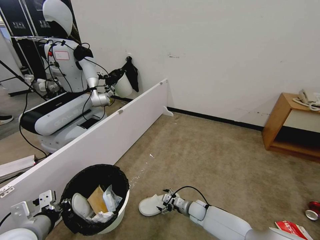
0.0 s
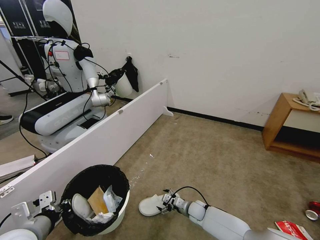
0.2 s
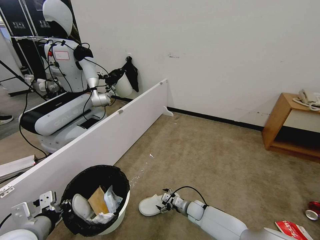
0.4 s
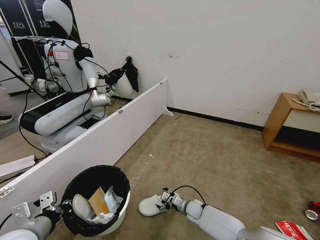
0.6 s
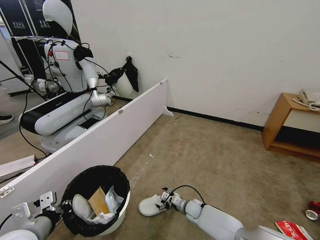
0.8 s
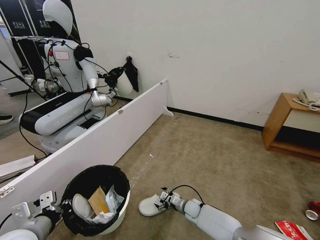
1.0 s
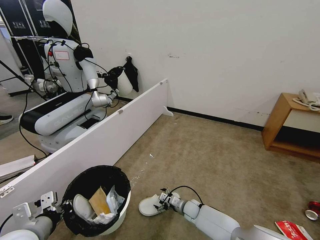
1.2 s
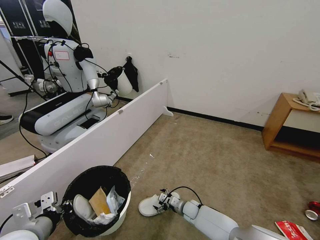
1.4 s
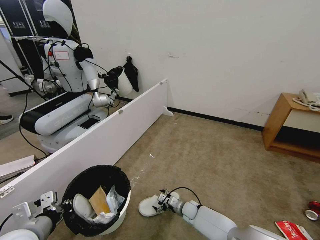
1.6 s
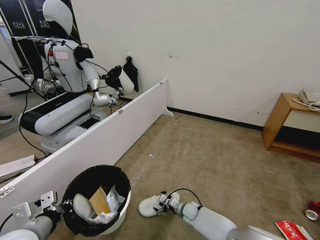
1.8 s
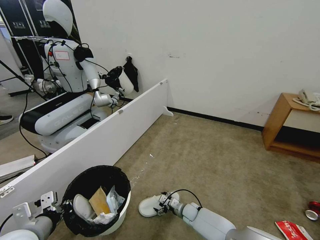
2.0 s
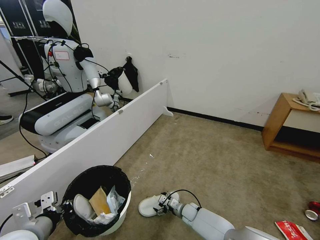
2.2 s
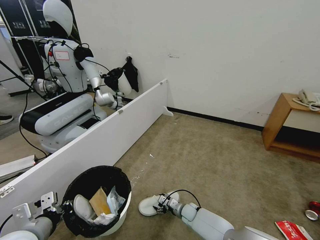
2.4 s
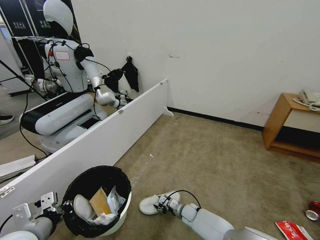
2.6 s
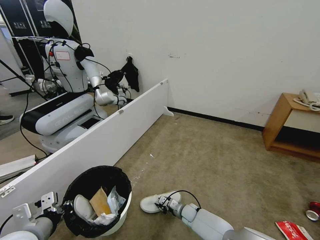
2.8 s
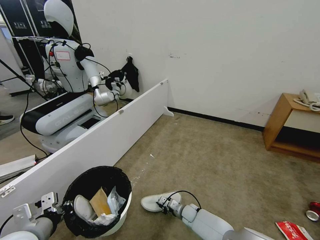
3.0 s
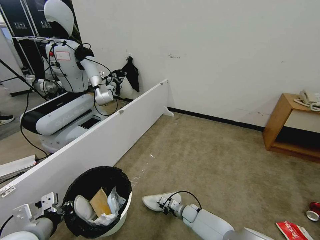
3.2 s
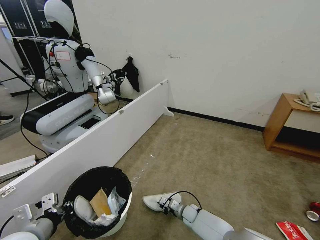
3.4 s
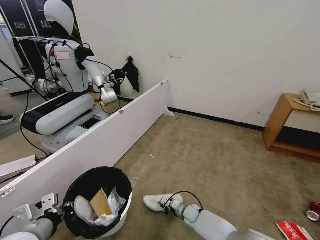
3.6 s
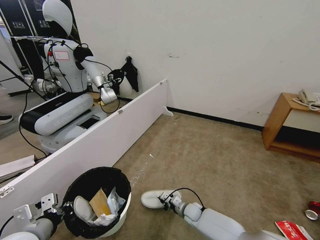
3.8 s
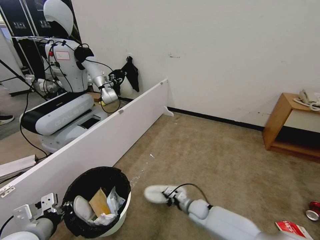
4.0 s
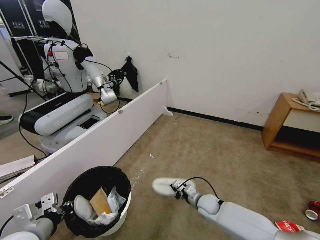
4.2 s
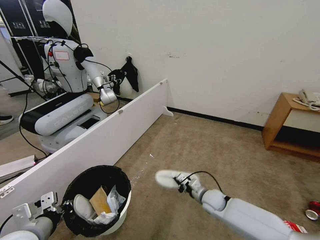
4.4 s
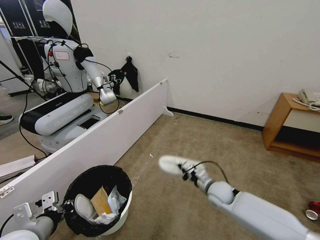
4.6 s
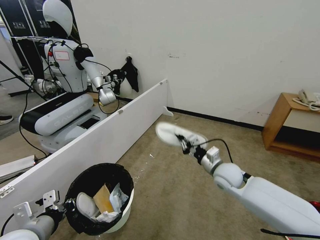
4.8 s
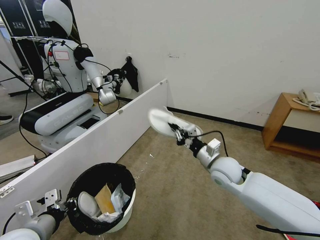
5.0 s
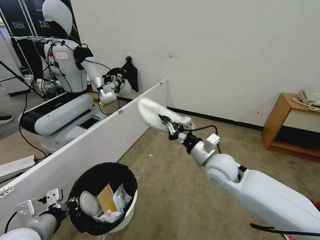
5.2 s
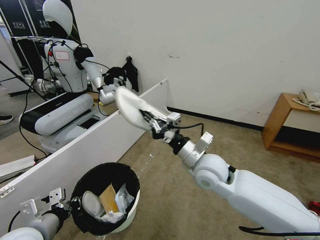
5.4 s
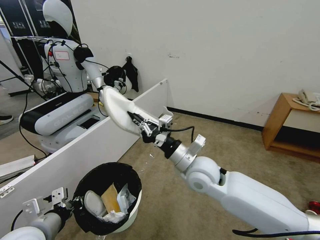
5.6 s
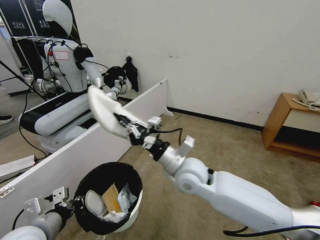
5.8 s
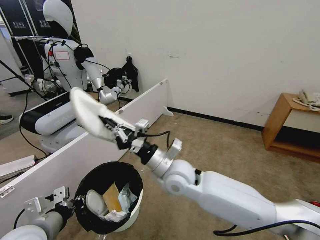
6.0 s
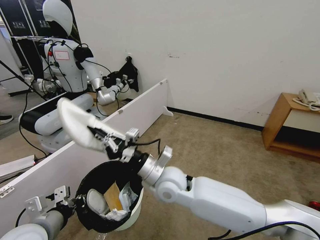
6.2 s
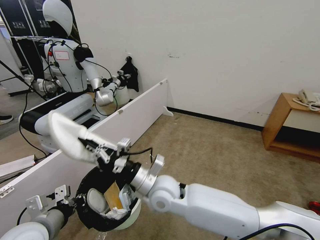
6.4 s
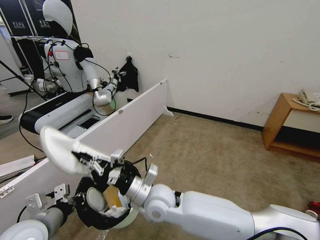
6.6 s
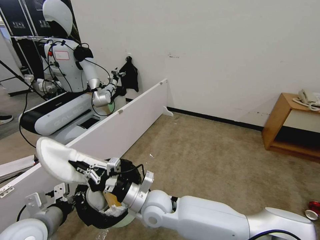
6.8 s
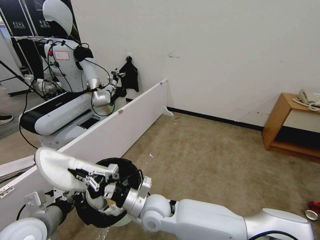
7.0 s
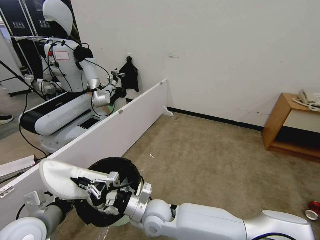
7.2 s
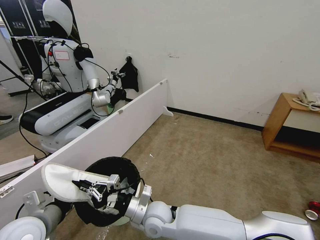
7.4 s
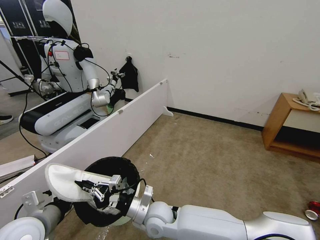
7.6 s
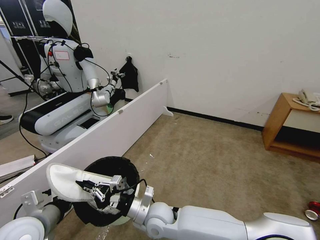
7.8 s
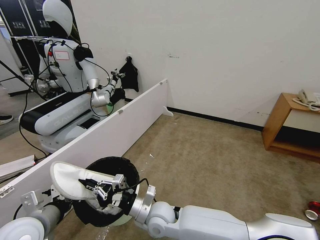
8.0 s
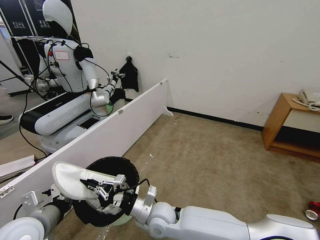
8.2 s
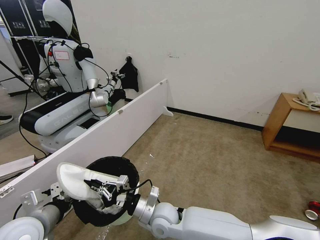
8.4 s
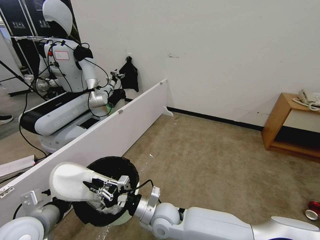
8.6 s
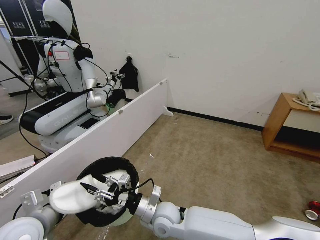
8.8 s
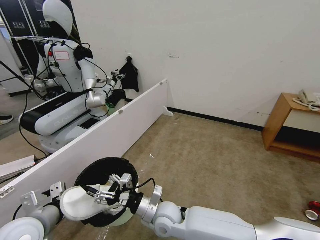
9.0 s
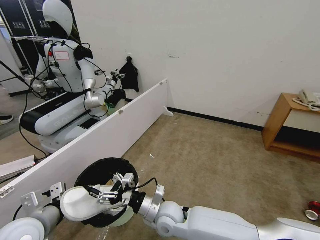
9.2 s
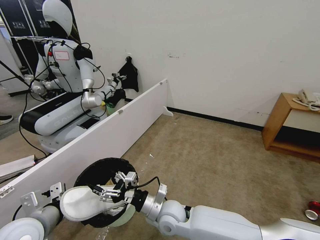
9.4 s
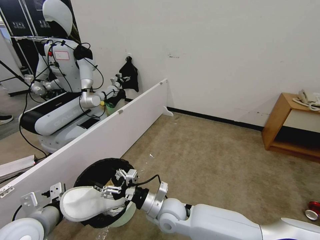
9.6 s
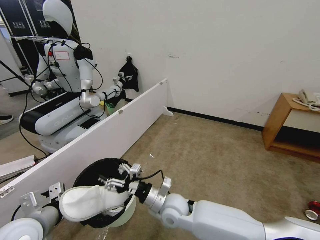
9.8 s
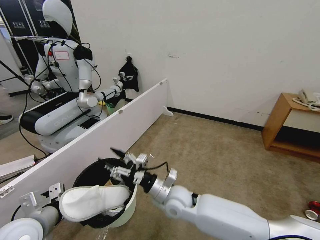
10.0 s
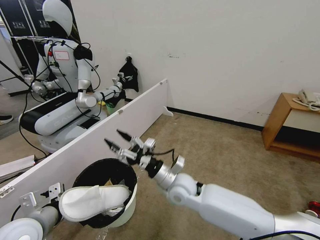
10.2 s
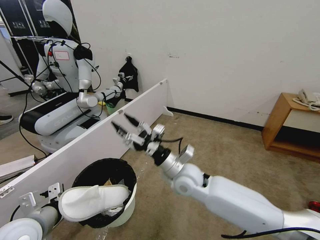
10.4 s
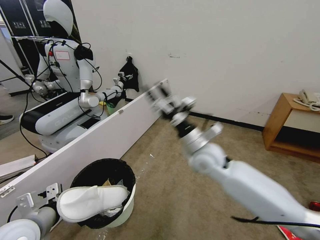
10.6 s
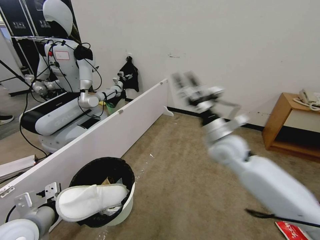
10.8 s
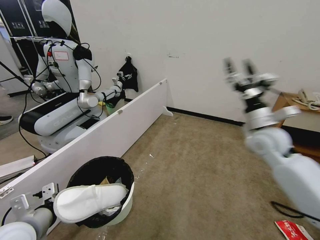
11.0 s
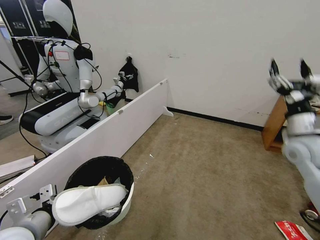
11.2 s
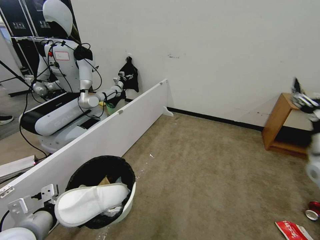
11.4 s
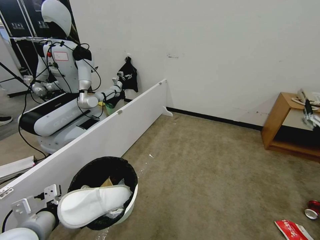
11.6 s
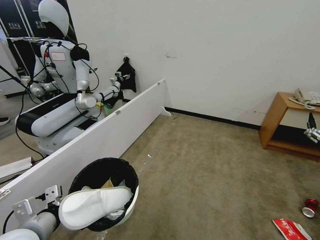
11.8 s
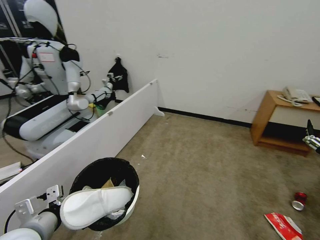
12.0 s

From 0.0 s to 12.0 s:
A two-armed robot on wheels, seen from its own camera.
Task of the whole recording: Pick up the trash bin, then pick up the garbage from the floor and place it into the trash bin.
From 0.0 s to 1.6 s: The grippers move only a little.
From 1.6 s to 3.0 s: The right gripper closes.
From 3.0 s to 4.4 s: The right gripper travels upward and to the right by approximately 20 cm.
From 4.4 s to 6.0 s: The right gripper is displaced upward and to the left by about 30 cm.
From 6.0 s to 7.6 s: The right gripper shifts roughly 15 cm downward, to the left and backward.
From 7.6 s to 9.0 s: The right gripper opens up.
From 9.0 s to 10.4 s: The right gripper travels upward, forward and to the right by about 15 cm.
From 10.4 s to 12.0 s: The right gripper shifts approximately 40 cm to the right.

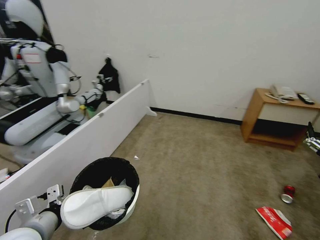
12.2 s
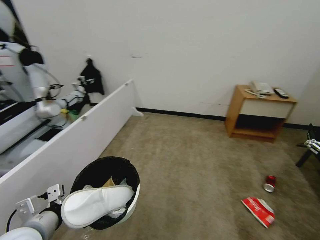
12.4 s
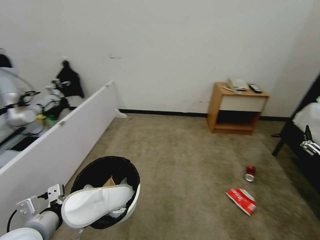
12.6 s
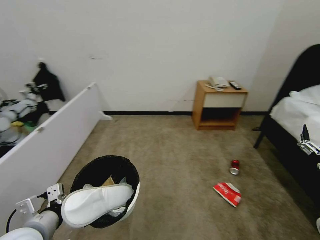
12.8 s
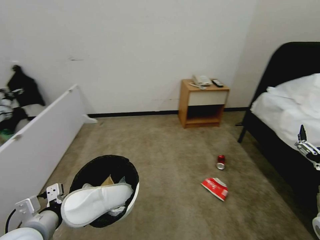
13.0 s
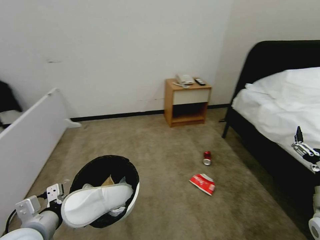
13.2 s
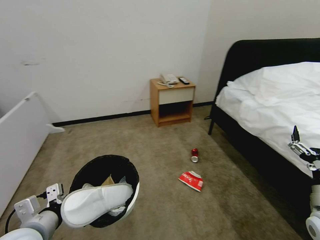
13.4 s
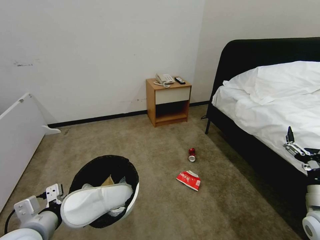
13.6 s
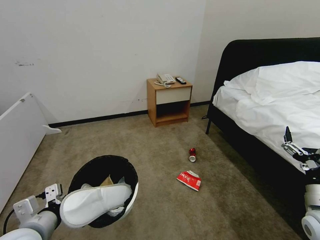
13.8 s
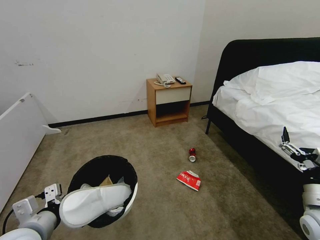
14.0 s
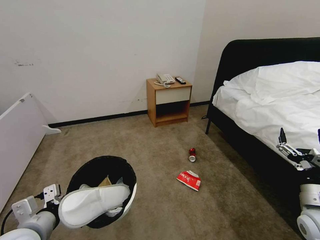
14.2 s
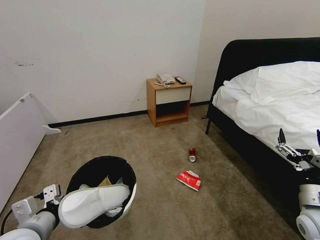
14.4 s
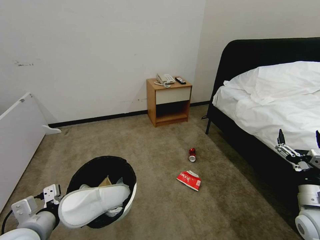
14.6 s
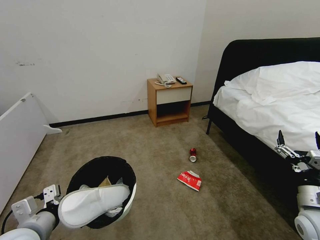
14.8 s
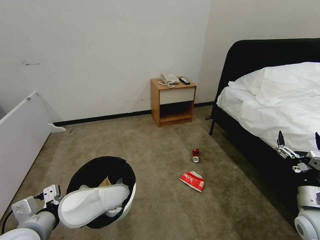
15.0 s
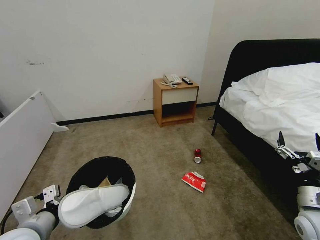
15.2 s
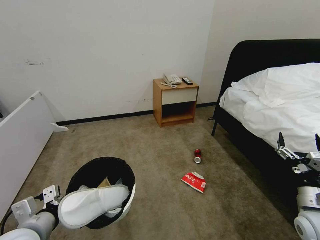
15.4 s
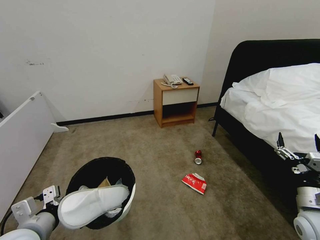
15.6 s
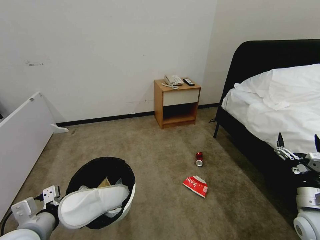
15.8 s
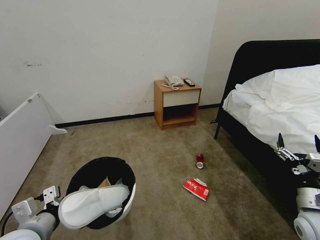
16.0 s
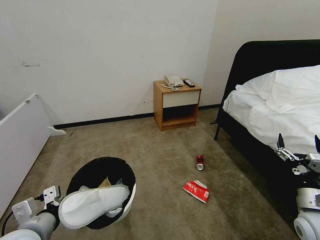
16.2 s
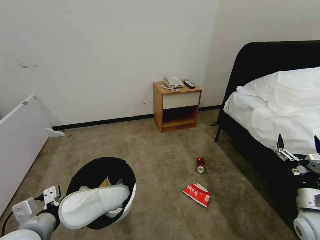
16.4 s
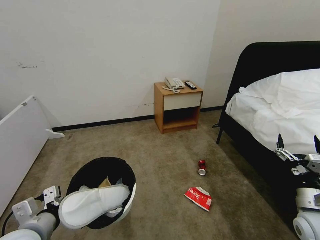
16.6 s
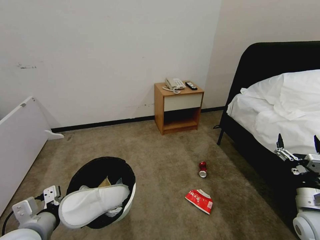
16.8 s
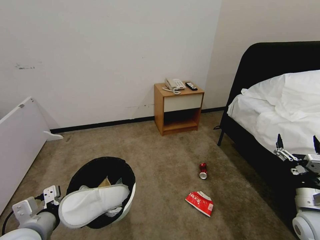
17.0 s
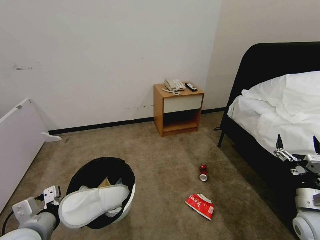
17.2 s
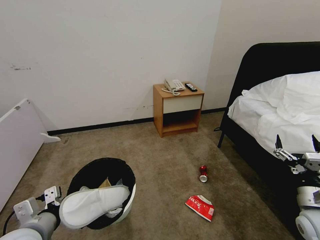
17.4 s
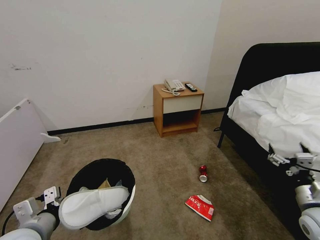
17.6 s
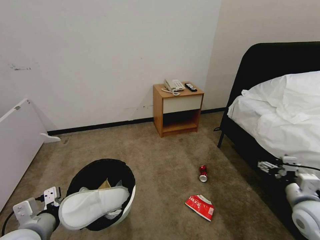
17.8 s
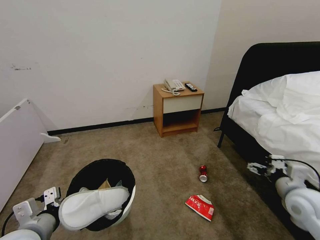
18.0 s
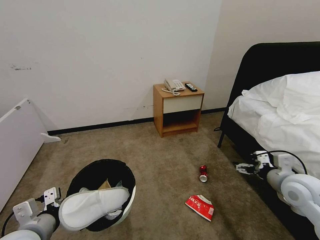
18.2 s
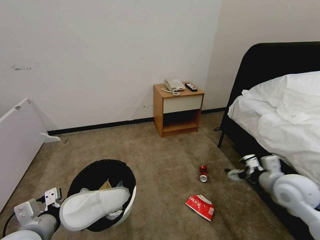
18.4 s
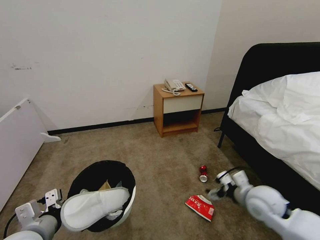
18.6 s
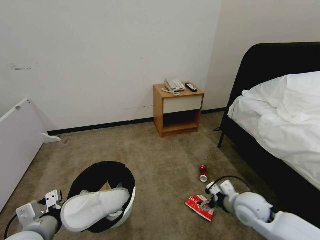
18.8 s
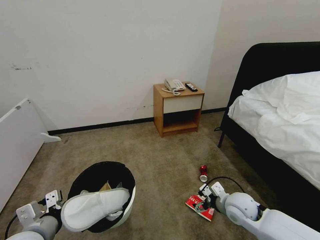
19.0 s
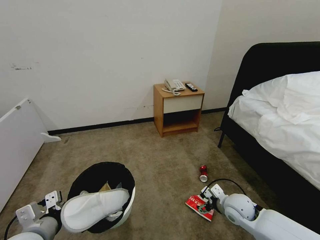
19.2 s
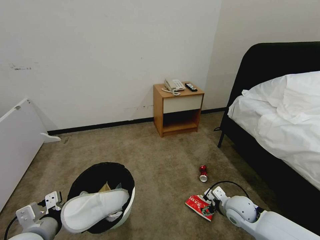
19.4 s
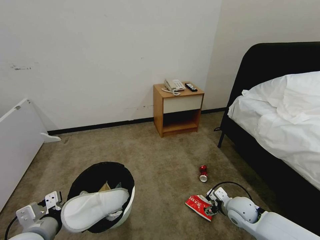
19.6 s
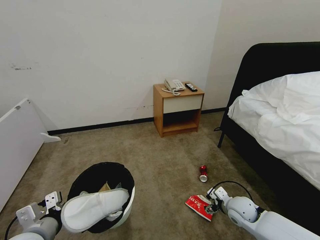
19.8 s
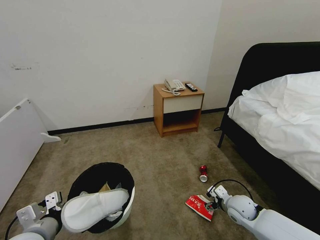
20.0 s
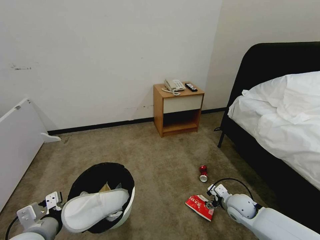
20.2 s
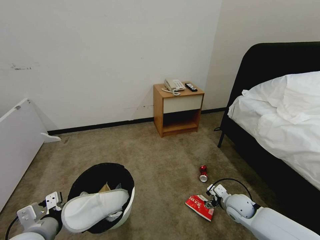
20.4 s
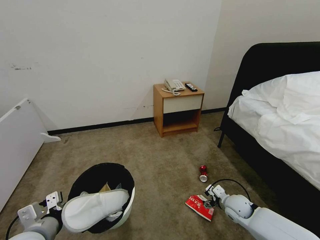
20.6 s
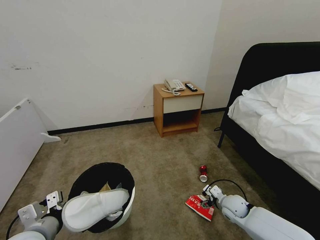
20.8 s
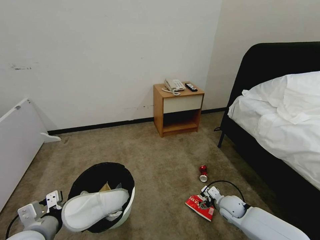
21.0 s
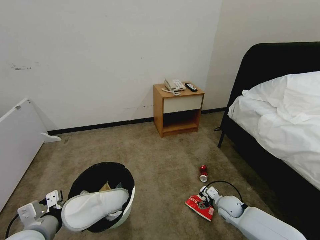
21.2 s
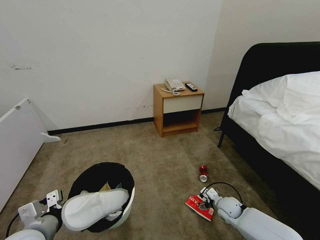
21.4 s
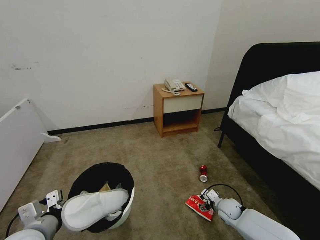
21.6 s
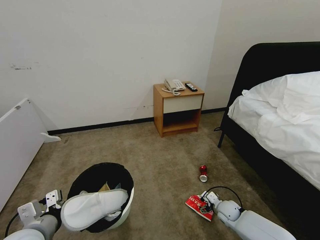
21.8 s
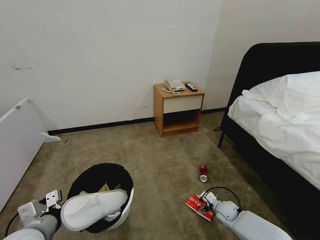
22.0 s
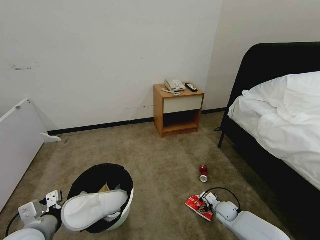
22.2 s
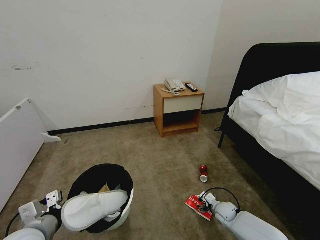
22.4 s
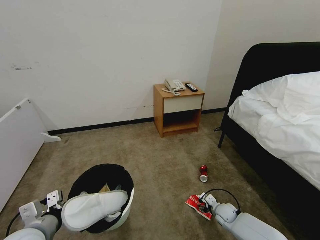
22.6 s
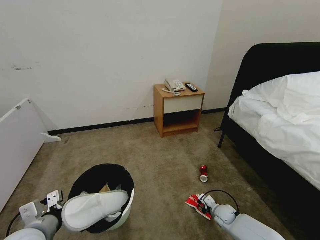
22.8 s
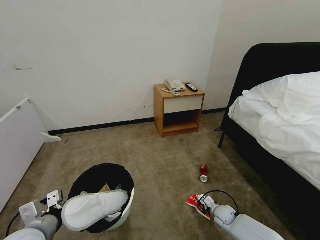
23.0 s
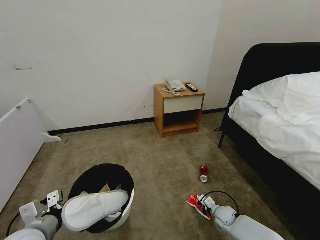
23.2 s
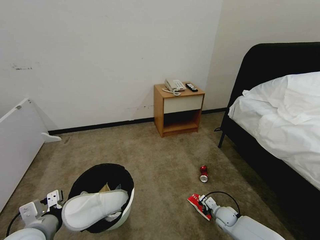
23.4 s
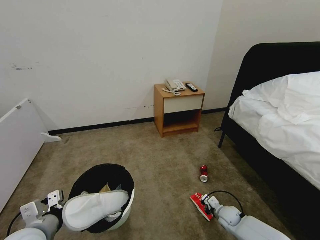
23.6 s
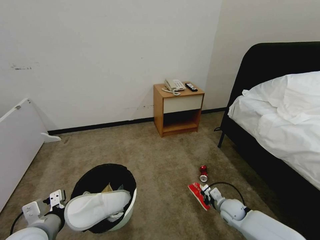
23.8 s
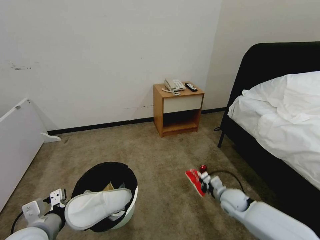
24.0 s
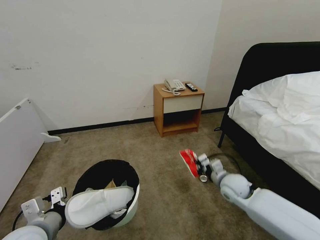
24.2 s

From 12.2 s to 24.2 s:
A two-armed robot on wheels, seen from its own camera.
Task of the whole recording: Pick up the trash bin, then pick up the garbage from the floor and place it into the trash bin.
From 12.2 s to 13.8 s: The right gripper goes approximately 5 cm to the left.
From 13.8 s to 15.2 s: The grippers move only a little.
From 15.2 s to 16.6 s: Both grippers stay put.
From 16.6 s to 18.2 s: The right gripper is displaced upward and forward by some 10 cm.
From 18.2 s to 19.8 s: The right gripper shifts some 20 cm downward and to the left.
From 19.8 s to 21.2 s: The right gripper moves downward, about 5 cm.
From 21.2 s to 22.6 s: The right gripper heads downward, covering some 5 cm.
From 22.6 s to 24.2 s: The right gripper heads upward, covering approximately 20 cm, and closes up.
